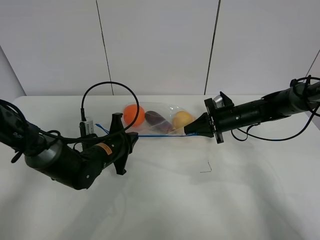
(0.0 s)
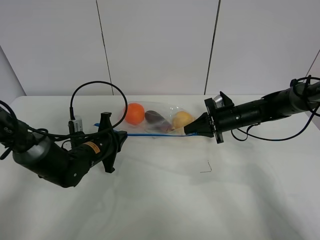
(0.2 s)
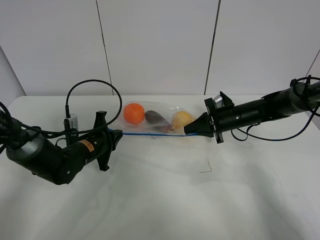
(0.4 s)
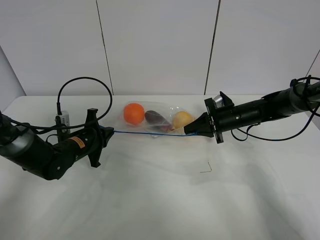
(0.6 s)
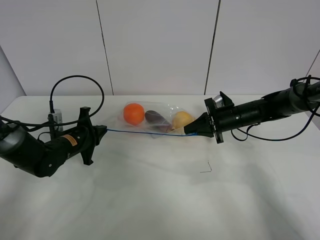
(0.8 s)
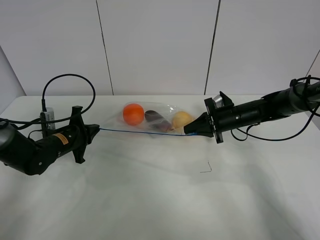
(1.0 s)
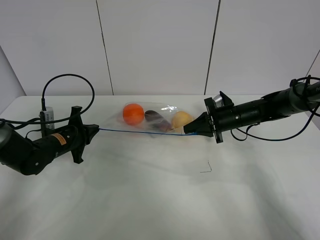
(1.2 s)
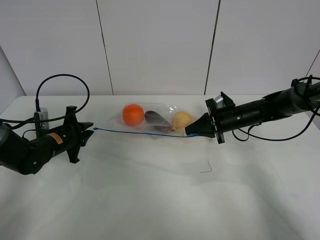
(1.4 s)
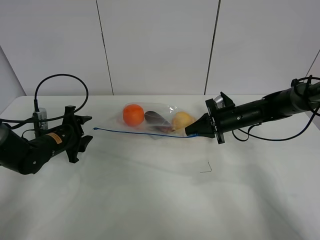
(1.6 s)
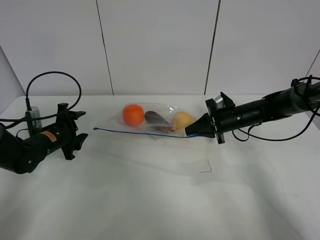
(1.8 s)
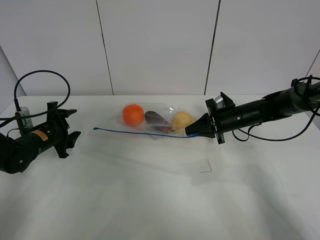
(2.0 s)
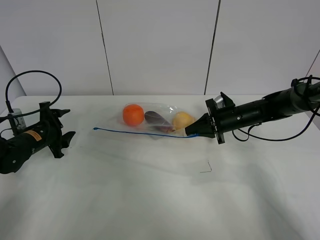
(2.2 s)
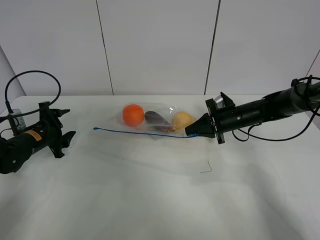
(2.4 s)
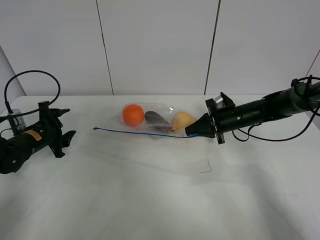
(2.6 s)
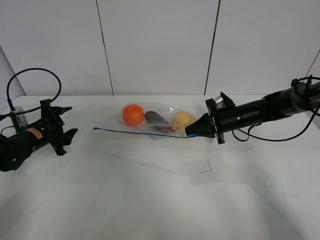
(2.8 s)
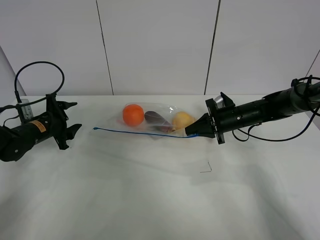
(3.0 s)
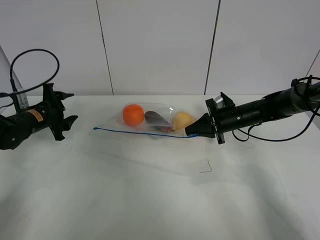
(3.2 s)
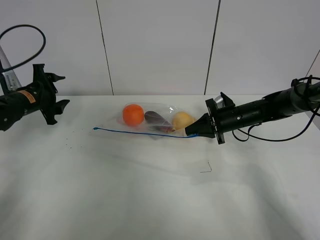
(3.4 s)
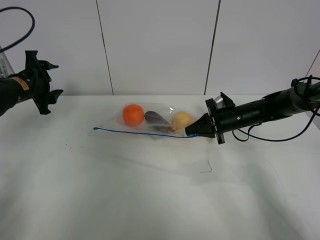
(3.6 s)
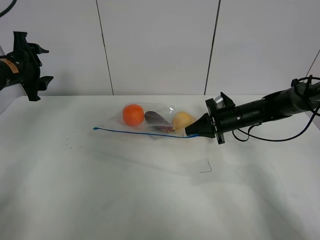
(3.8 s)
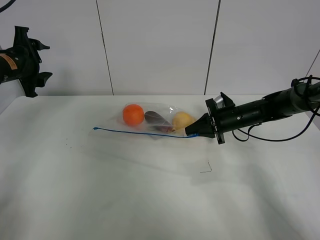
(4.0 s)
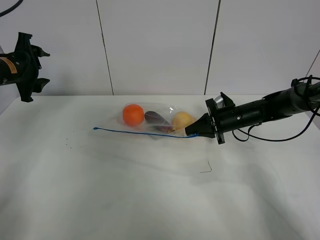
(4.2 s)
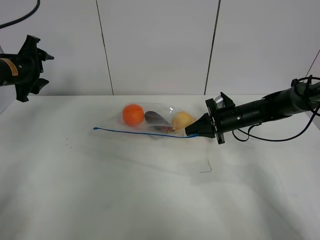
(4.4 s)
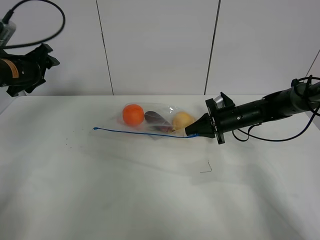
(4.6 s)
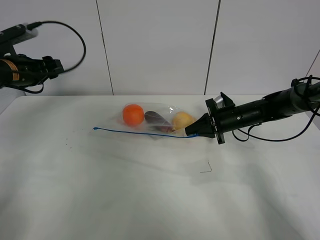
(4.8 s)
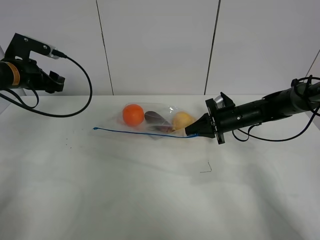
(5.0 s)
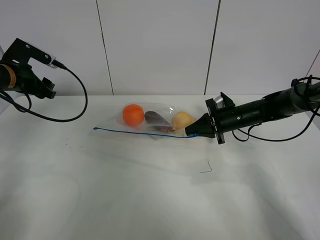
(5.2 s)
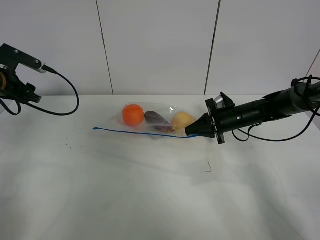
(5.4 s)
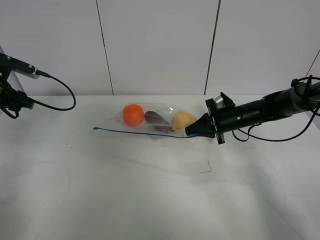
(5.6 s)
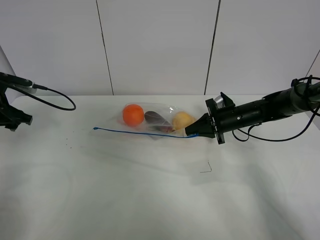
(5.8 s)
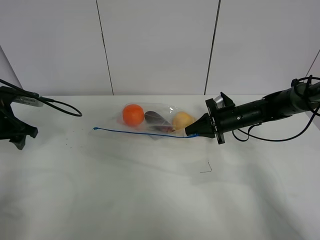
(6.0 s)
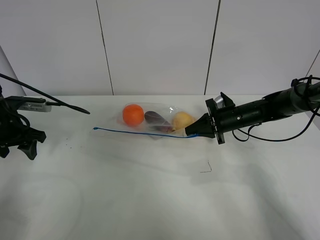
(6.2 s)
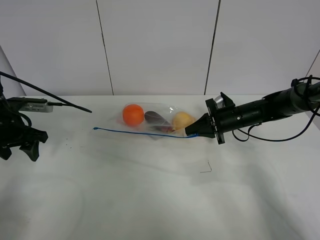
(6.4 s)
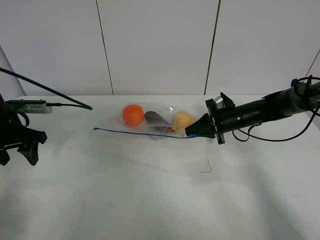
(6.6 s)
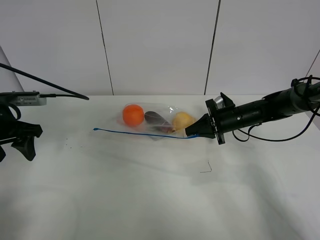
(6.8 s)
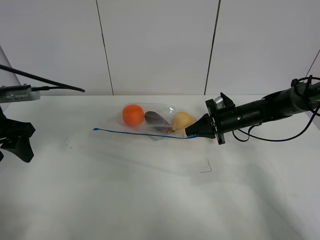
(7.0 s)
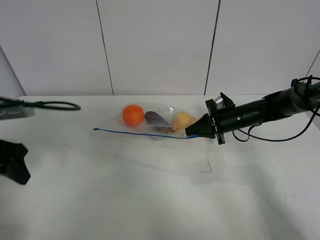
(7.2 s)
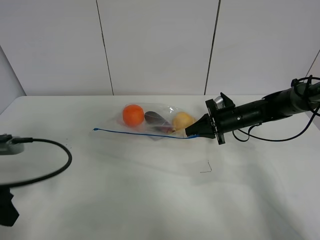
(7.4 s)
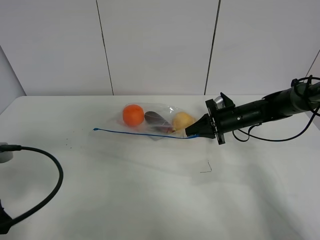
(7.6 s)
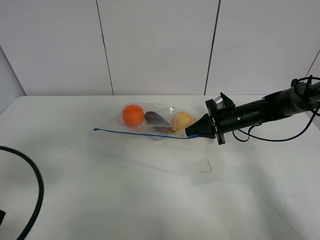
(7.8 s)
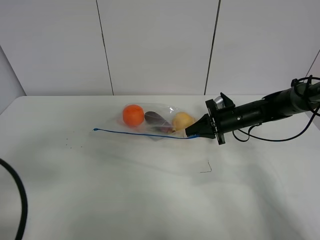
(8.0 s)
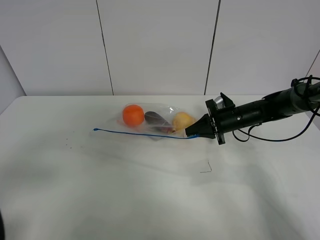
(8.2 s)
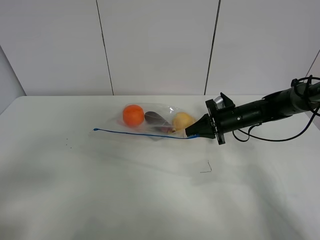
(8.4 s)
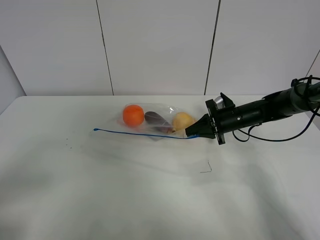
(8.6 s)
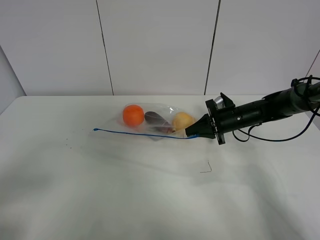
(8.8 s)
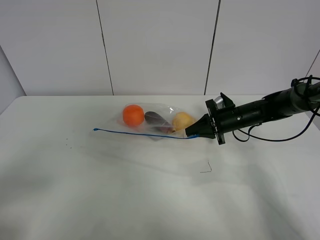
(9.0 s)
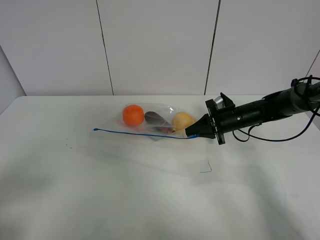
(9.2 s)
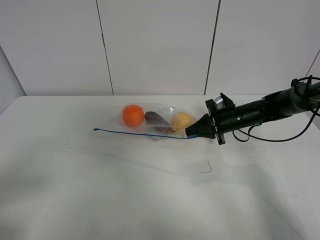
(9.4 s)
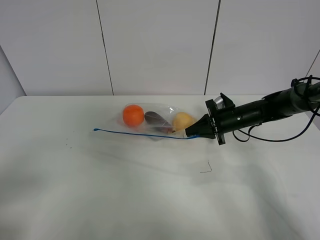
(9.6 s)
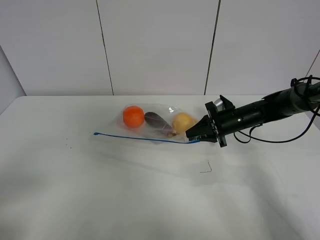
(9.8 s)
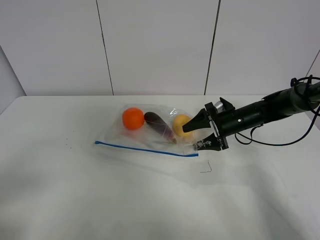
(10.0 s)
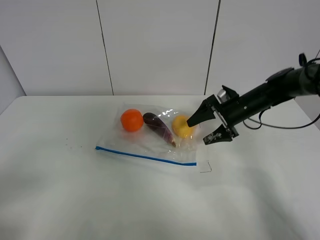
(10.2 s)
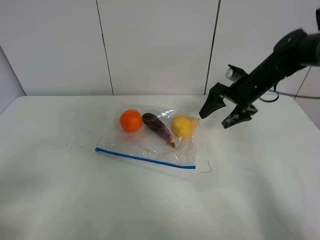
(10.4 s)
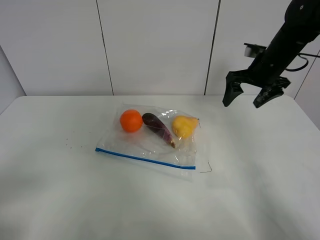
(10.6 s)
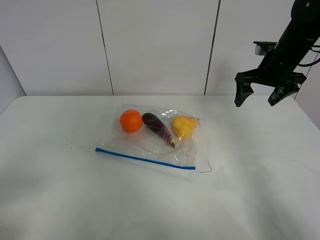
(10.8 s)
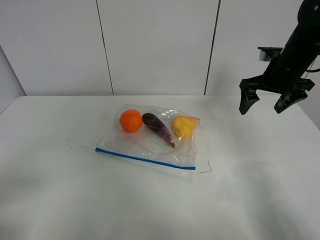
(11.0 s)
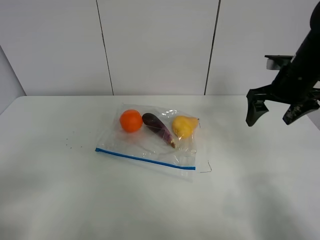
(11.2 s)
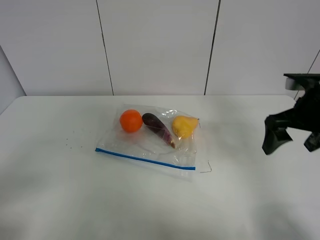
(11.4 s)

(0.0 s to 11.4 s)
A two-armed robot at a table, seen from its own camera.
0.0 s - 1.4 s: The left gripper heads to the left, covering about 10 cm, and opens.
1.4 s - 2.8 s: The left gripper moves some 5 cm, and opens.
2.8 s - 4.2 s: The left gripper travels upward by about 15 cm.
4.2 s - 5.6 s: The left gripper ends up approximately 5 cm from where it was.
5.6 s - 7.2 s: The left gripper shifts about 15 cm backward.
7.2 s - 8.6 s: The left gripper travels backward by approximately 20 cm.
8.6 s - 10.0 s: The right gripper opens up.
10.0 s - 11.4 s: The right gripper heads upward and backward, covering some 20 cm.

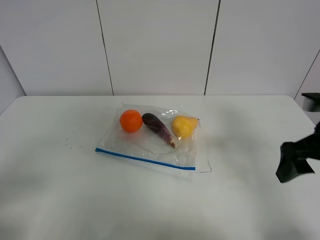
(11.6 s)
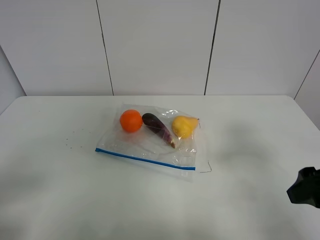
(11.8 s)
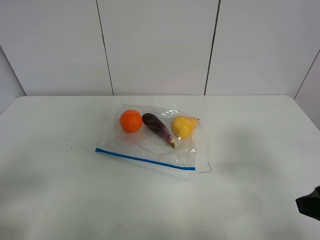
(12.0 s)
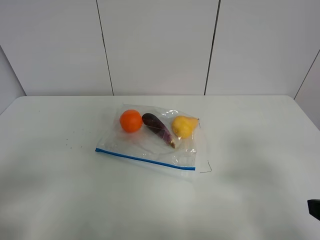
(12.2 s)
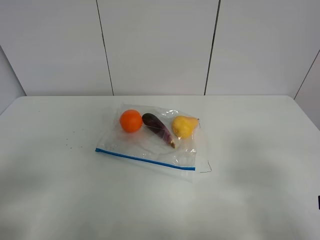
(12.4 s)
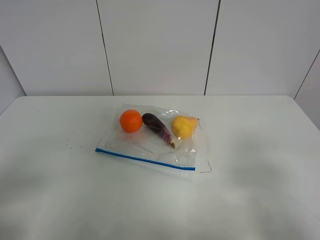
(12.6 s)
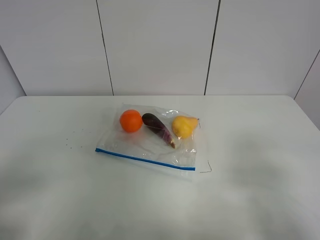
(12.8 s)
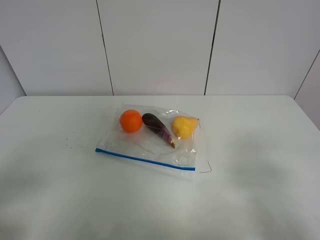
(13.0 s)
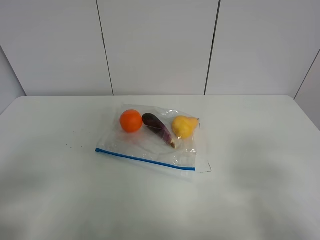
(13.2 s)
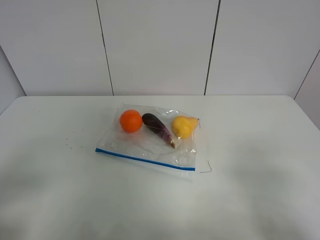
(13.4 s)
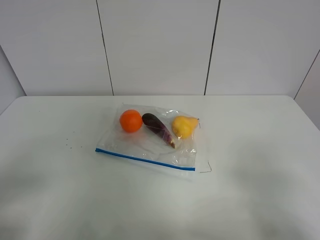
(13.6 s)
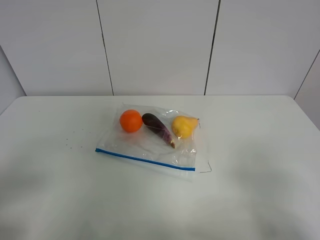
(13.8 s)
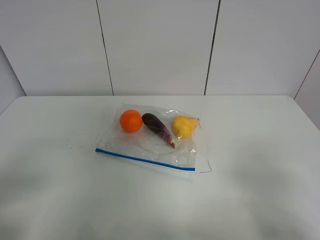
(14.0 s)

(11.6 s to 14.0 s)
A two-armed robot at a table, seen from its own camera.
11.6 s - 12.8 s: The right gripper shifts some 15 cm backward.

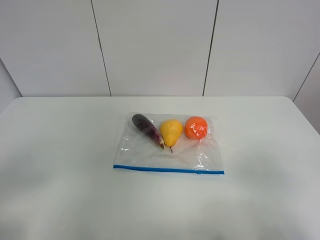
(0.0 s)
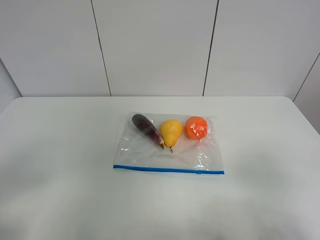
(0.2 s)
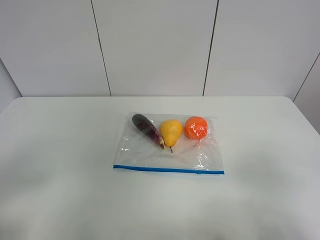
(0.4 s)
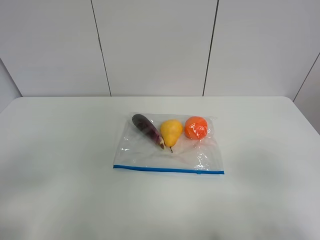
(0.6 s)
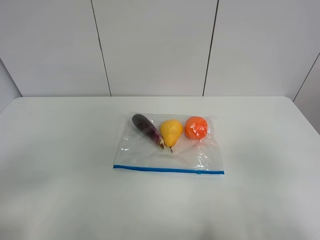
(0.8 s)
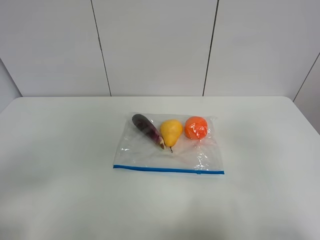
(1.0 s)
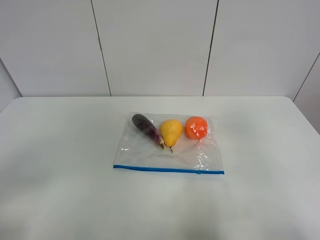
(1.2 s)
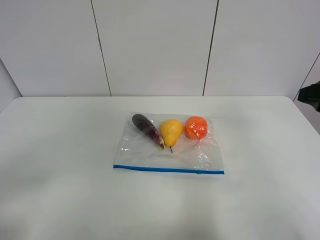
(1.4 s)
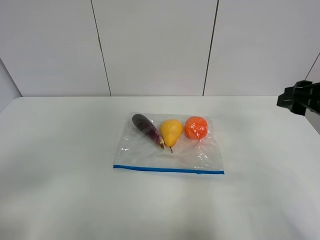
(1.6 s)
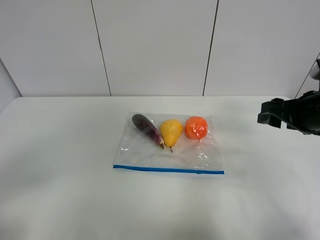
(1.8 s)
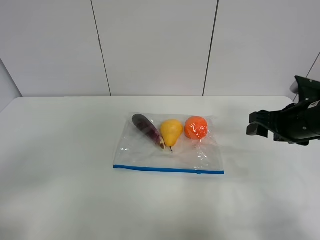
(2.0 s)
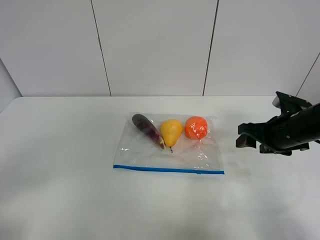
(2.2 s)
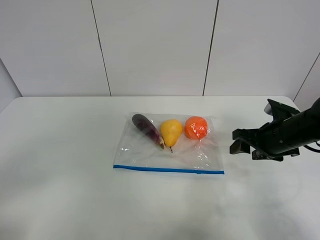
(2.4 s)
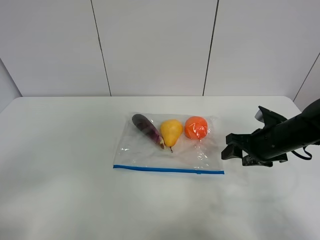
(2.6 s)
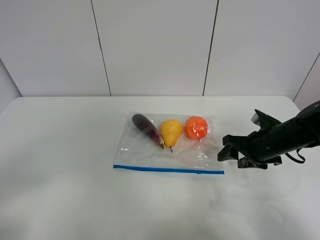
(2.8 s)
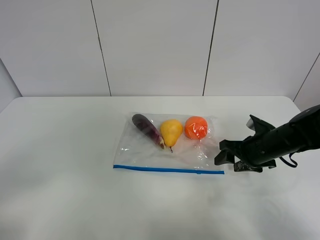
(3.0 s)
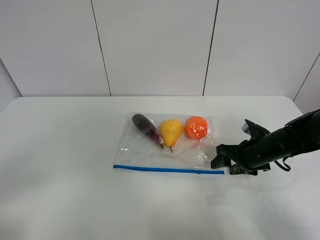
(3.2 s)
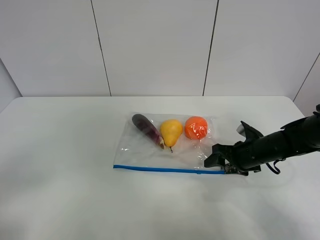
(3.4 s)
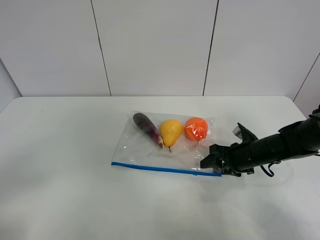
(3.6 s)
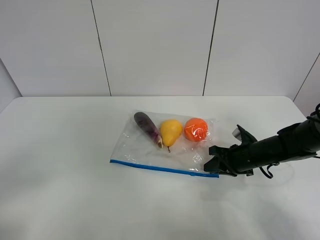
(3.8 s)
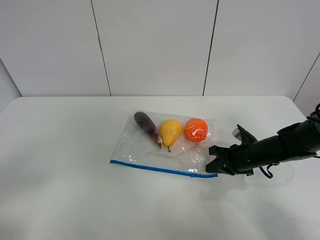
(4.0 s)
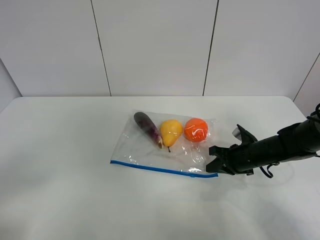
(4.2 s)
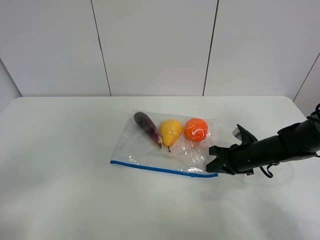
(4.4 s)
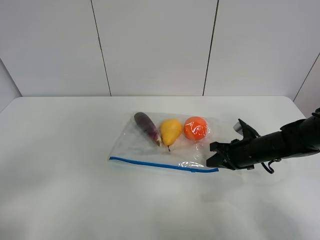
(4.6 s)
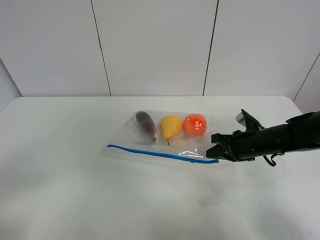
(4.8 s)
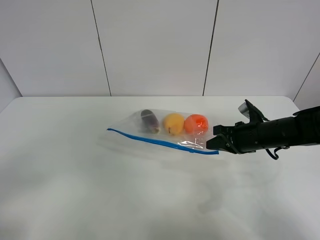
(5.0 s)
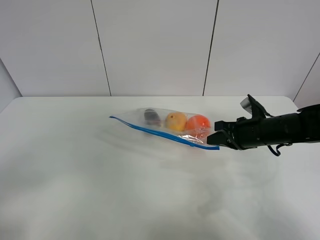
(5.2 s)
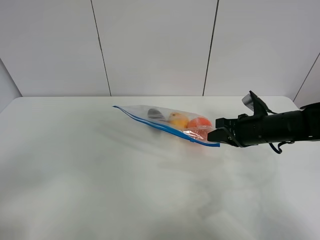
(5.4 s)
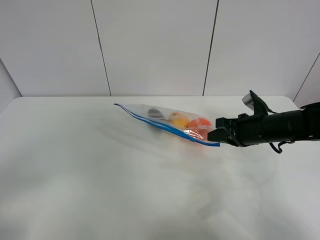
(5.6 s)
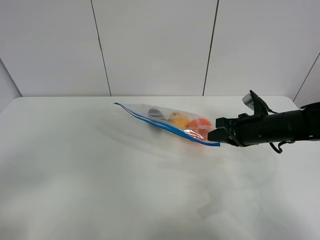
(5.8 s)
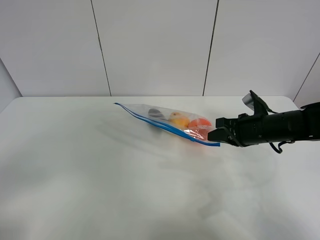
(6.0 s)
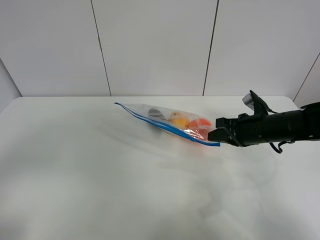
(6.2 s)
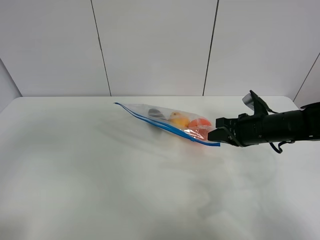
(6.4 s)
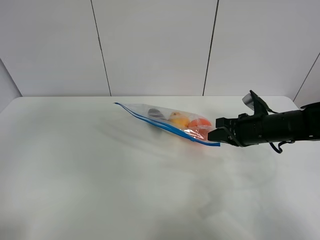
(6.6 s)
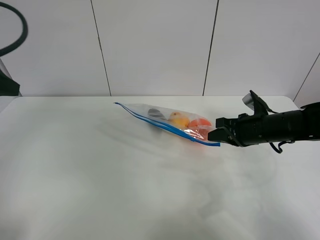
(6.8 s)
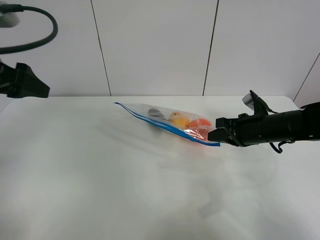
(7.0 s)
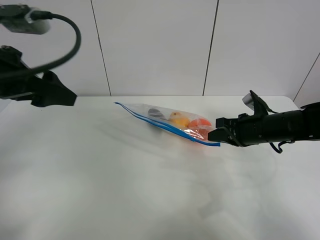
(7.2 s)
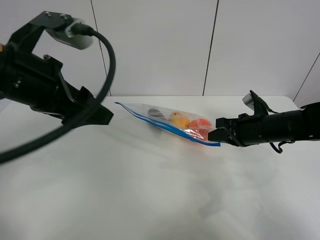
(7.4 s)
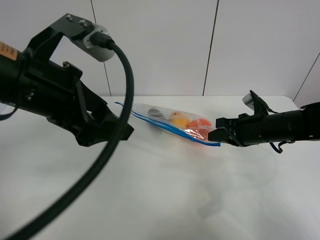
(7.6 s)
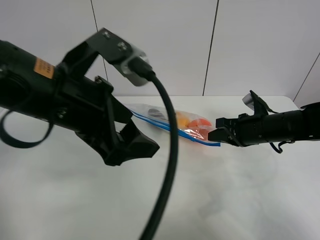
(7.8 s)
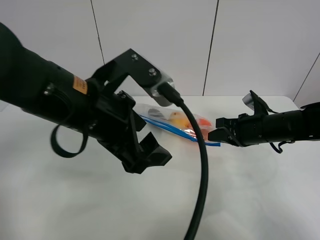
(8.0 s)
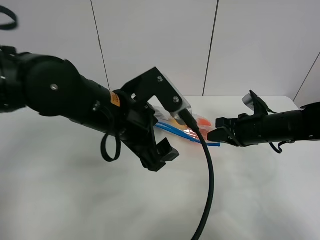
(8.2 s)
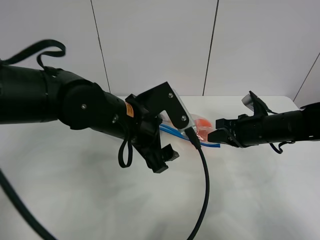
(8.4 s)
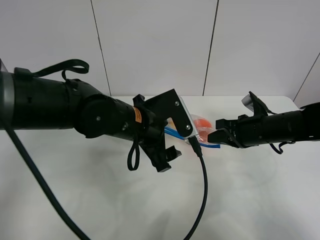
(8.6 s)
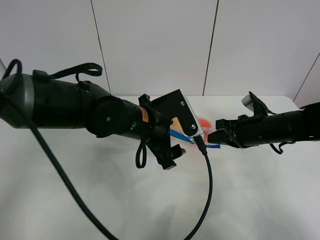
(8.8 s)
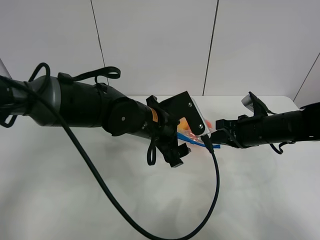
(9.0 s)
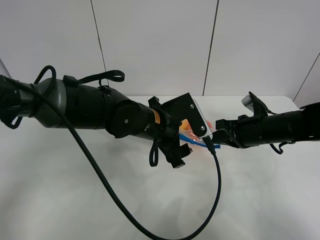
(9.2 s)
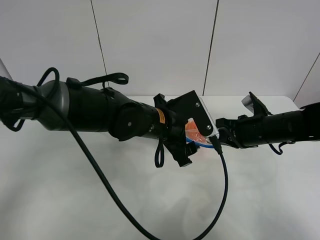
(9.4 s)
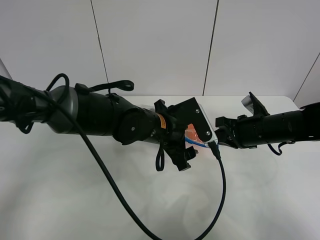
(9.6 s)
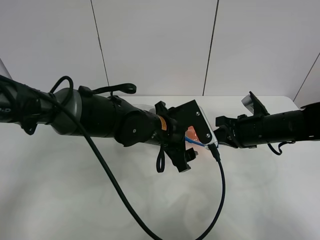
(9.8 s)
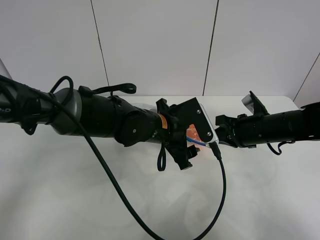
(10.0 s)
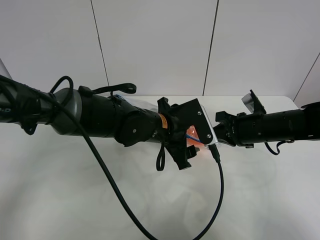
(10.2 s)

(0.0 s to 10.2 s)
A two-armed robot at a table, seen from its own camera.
Step, 0.0 s - 3.8 s: Grasp the fruit bag with right gripper.
Step, 4.0 s - 6.0 s: Lift the fruit bag with your right gripper.
0.0 s - 1.4 s: The right gripper shifts approximately 20 cm forward.
1.4 s - 3.0 s: The right gripper goes some 25 cm downward and forward.
3.0 s - 4.4 s: The right gripper closes.
4.4 s - 5.8 s: The right gripper goes some 10 cm upward.
5.8 s - 7.2 s: The left gripper is displaced forward by approximately 25 cm.
7.2 s - 8.8 s: The left gripper moves to the right and downward, about 25 cm.
8.8 s - 10.2 s: The grippers make only small movements.
